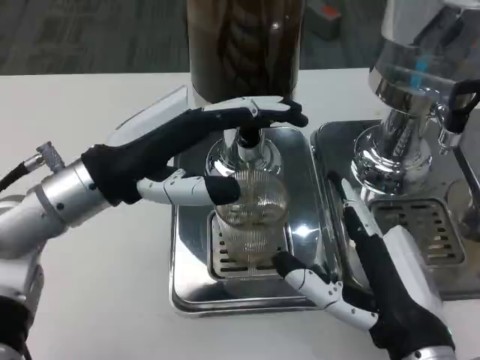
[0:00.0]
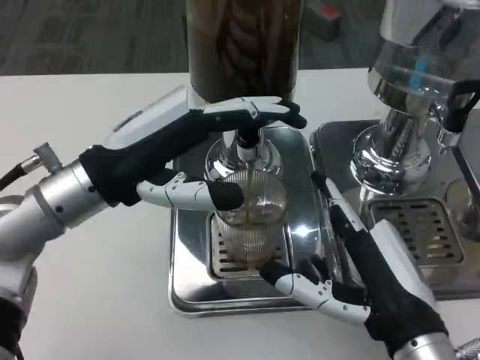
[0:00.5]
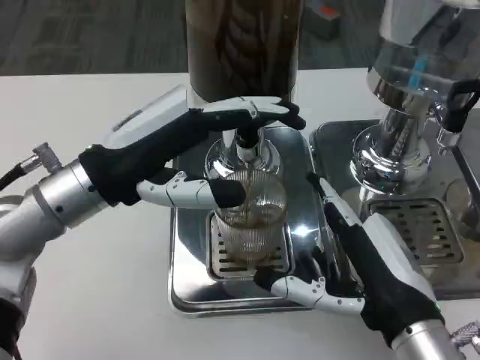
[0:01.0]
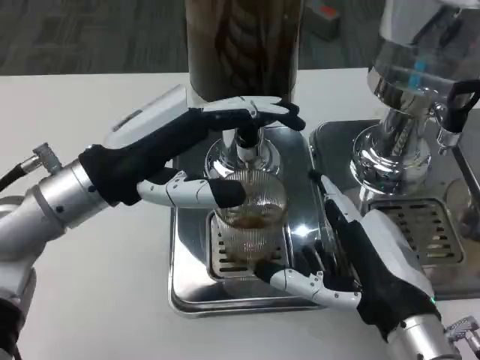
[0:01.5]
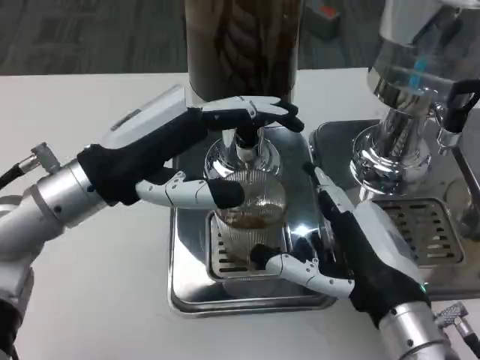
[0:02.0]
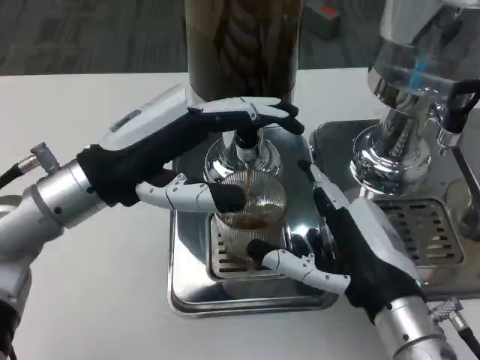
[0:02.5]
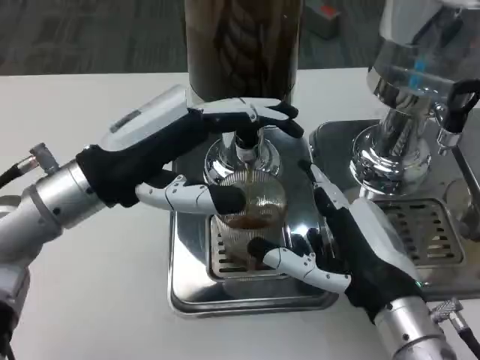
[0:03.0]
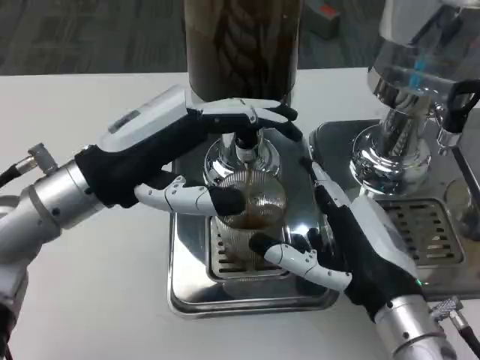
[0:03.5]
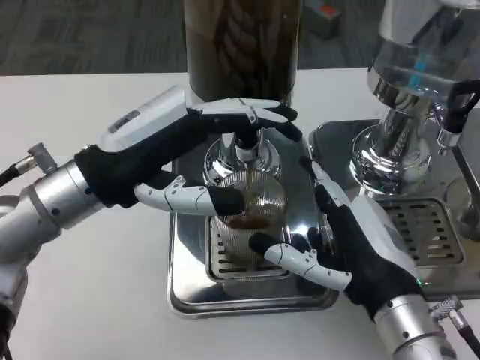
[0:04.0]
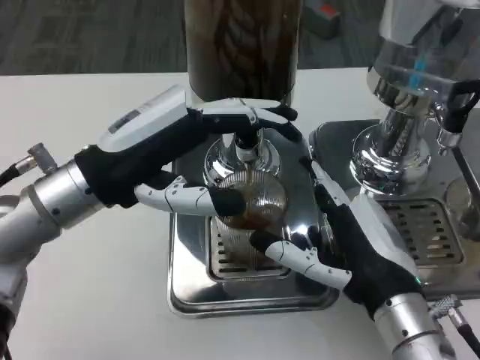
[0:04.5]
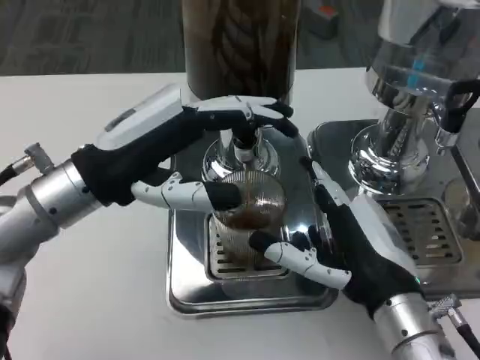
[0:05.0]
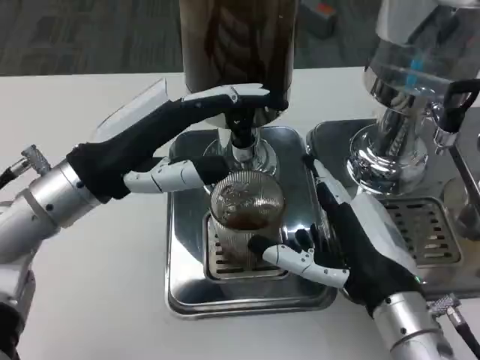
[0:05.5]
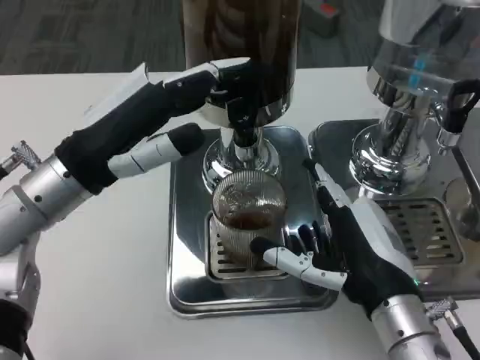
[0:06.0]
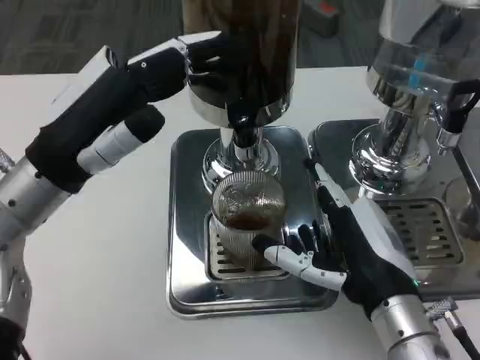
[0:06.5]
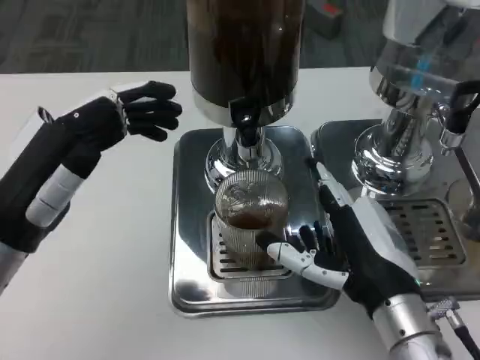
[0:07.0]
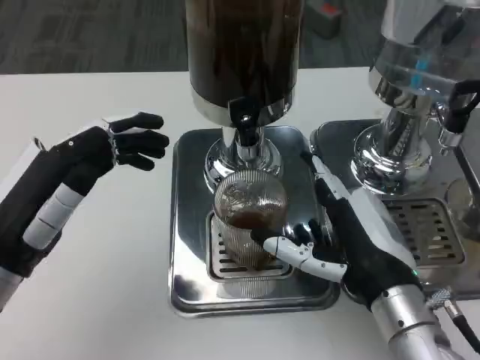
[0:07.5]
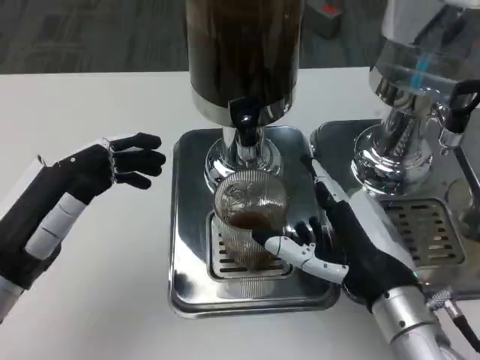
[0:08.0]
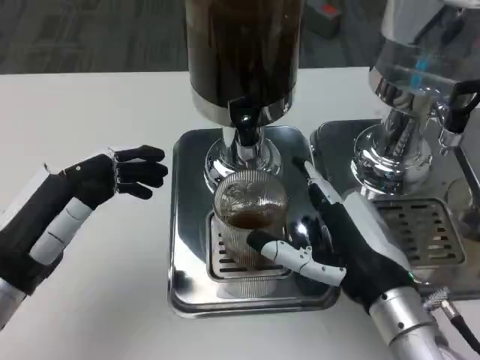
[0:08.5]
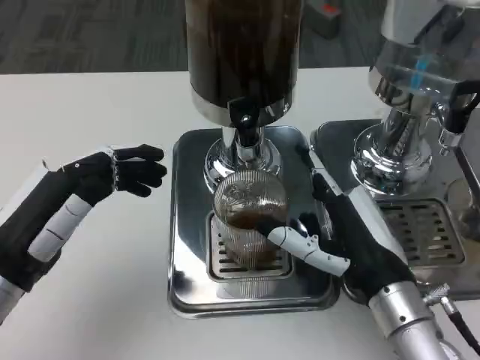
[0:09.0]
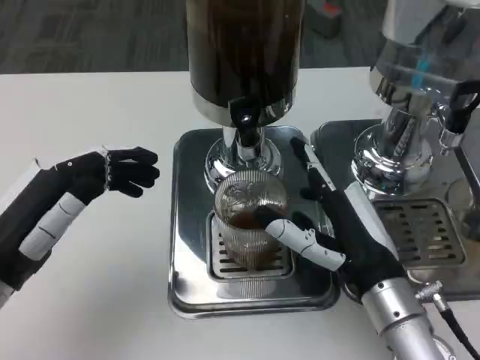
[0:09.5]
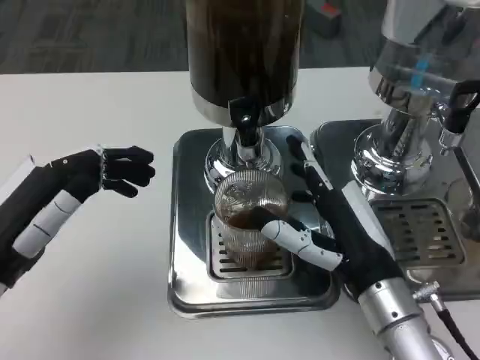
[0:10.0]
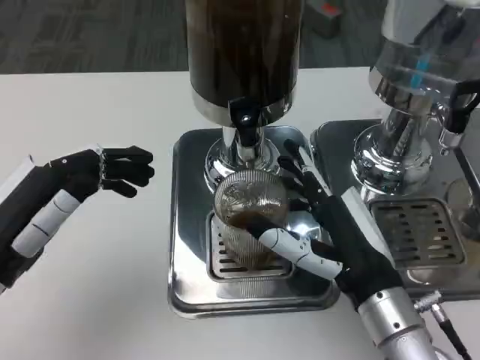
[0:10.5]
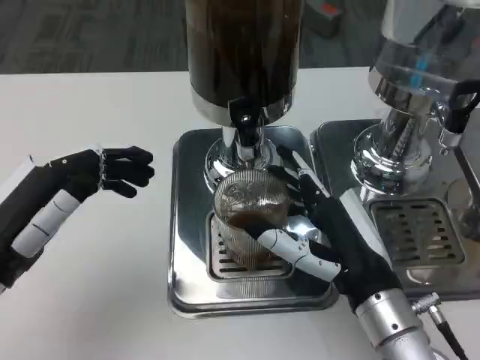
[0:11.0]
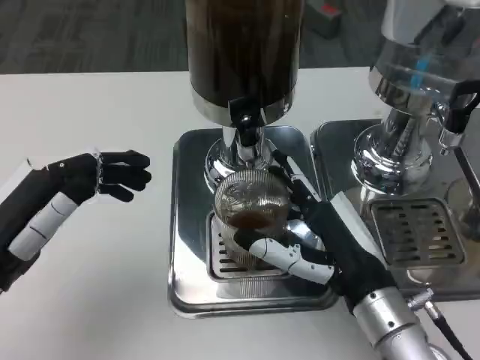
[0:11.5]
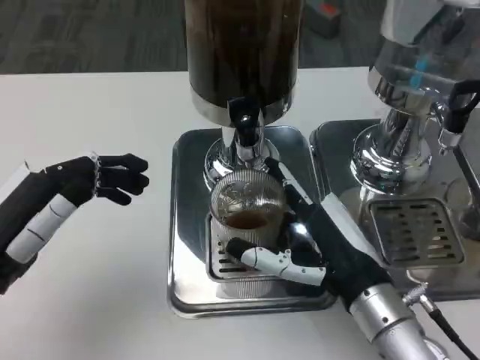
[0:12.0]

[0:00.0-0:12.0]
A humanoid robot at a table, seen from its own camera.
Task of the whole recording: Grasp the cup under the faucet to collect the drink, then remove the cup.
0:00.0 to 0:02.0: The hands stay close to where they were, moving slightly.
0:02.0 to 0:04.0: Both hands stay about where they are.
0:06.0 to 0:08.0: The left hand is displaced backward and downward by about 10 cm.
0:08.0 to 0:12.0: The hands move only a little.

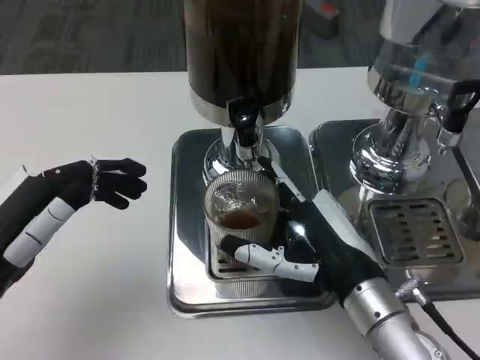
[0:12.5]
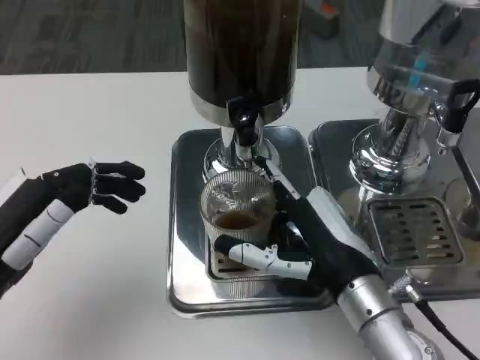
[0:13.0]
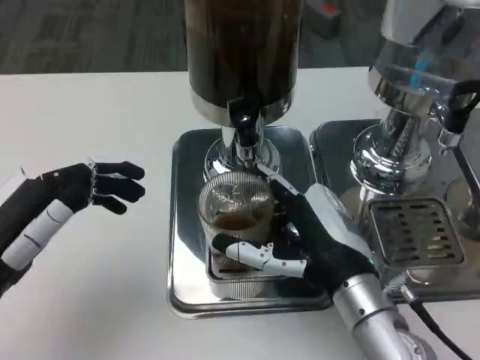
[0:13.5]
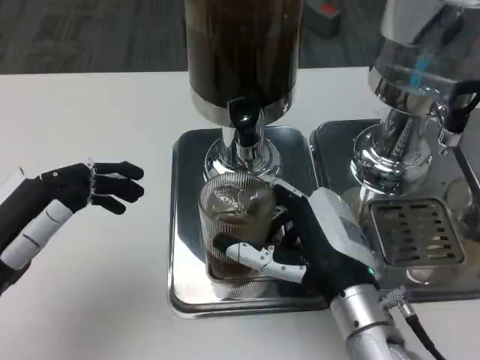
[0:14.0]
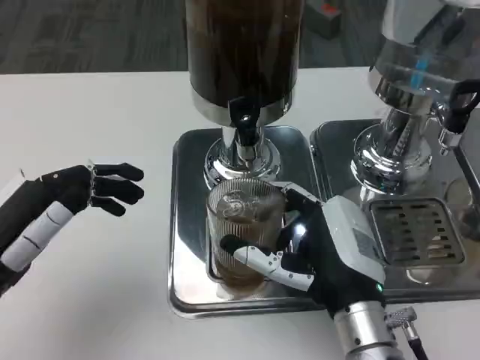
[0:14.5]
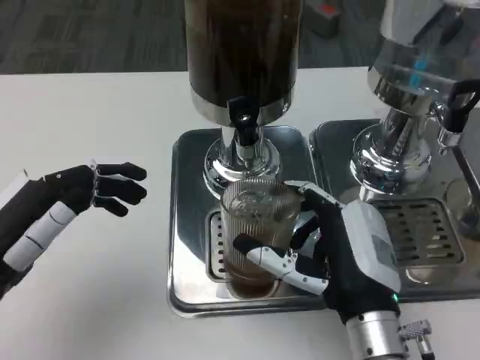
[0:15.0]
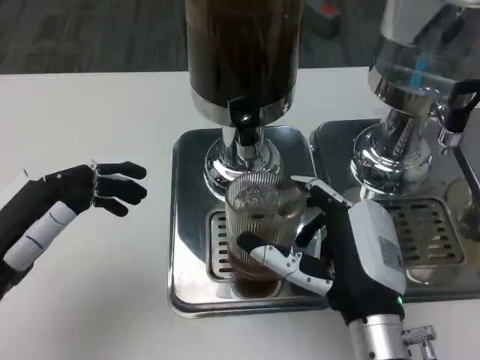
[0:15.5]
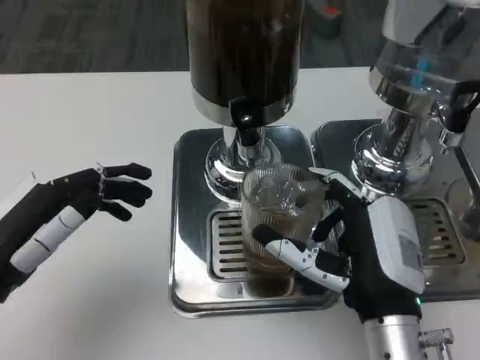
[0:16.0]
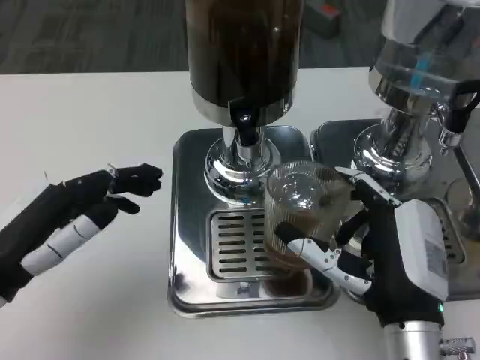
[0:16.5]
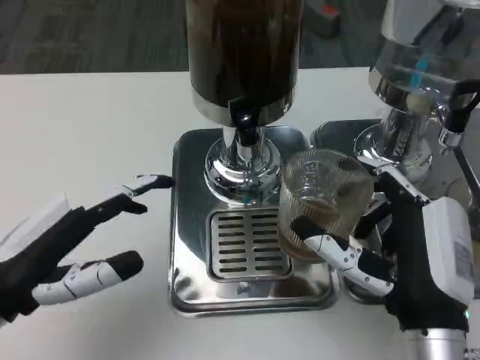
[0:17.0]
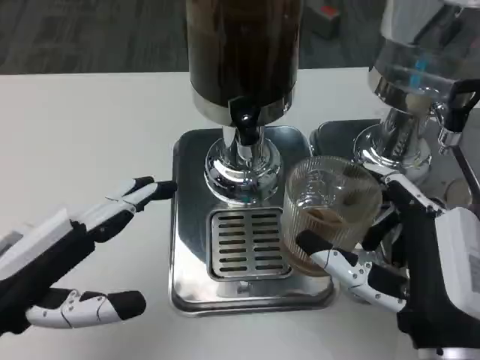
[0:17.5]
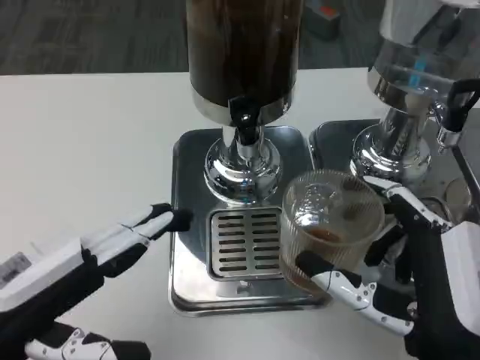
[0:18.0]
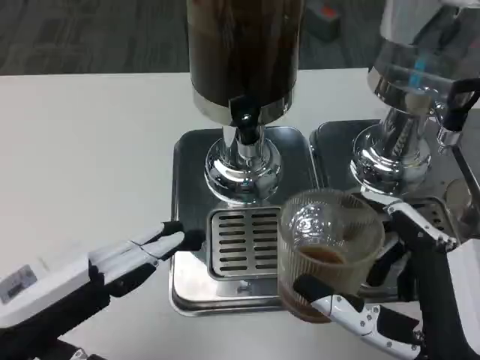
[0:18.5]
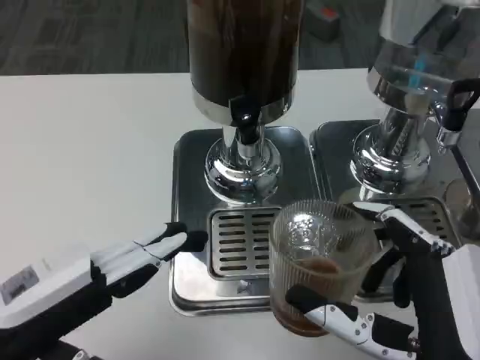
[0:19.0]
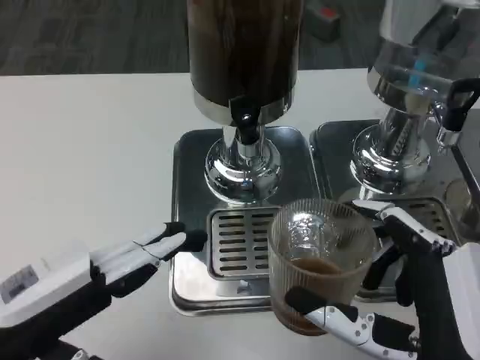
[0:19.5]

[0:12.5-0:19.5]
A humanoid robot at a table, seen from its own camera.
Task of the whole recording: Grasp the cup under the faucet to collect the drink, then remove the cup.
0:12.5 to 0:14.5: There are only small adjustments of the hands.
0:14.5 to 0:16.0: The hands move only a little.
0:16.0 to 0:17.5: The right hand ends up approximately 5 cm from where it was.
